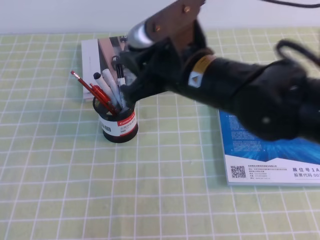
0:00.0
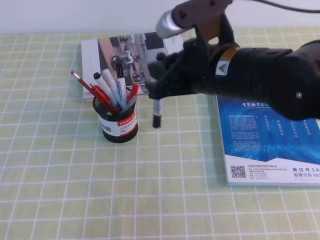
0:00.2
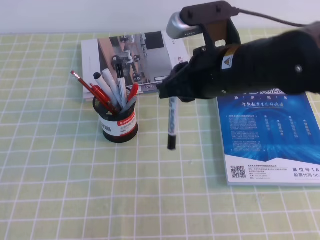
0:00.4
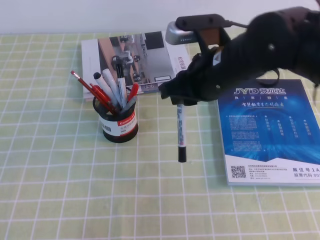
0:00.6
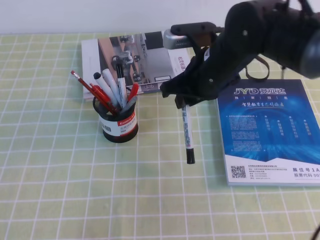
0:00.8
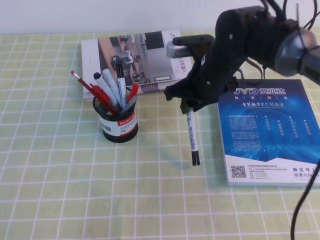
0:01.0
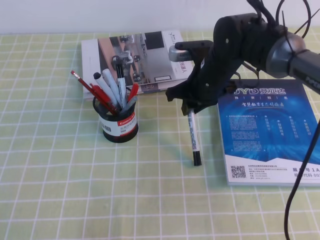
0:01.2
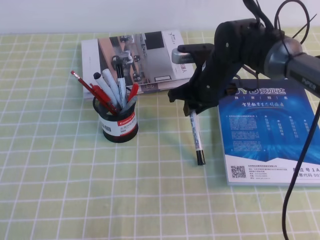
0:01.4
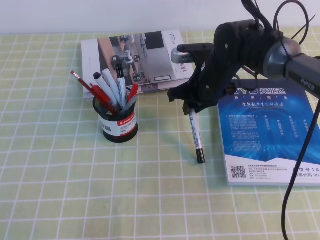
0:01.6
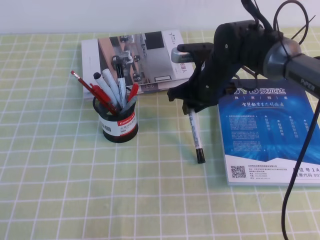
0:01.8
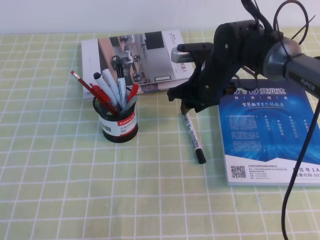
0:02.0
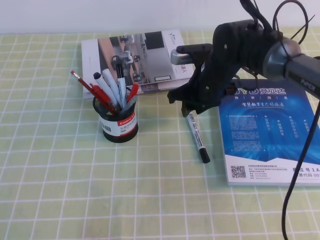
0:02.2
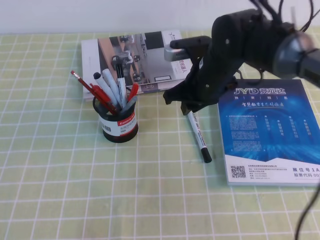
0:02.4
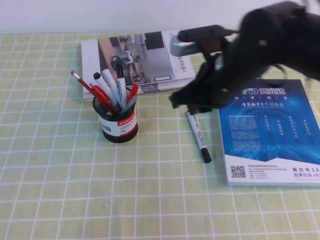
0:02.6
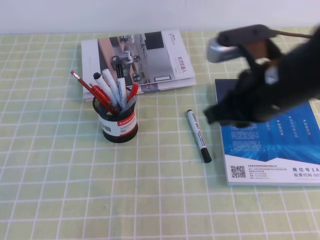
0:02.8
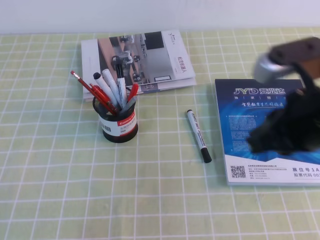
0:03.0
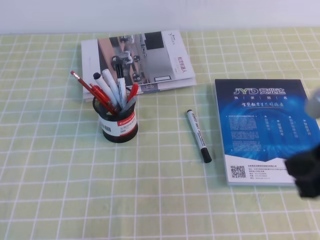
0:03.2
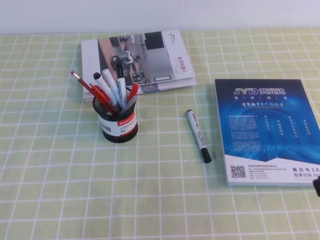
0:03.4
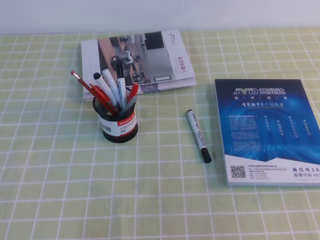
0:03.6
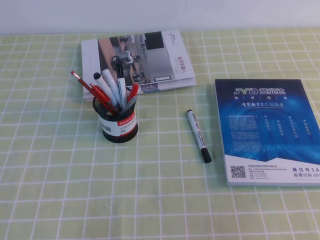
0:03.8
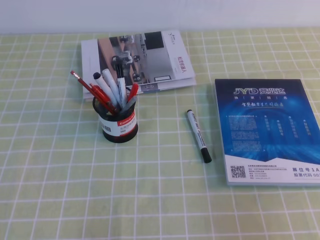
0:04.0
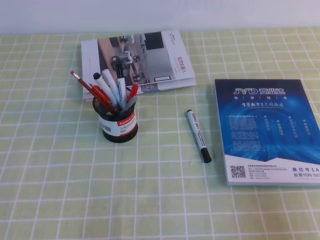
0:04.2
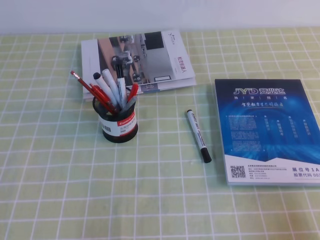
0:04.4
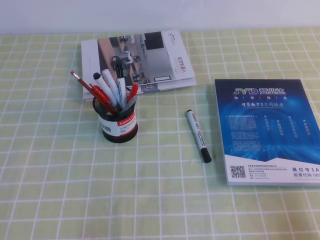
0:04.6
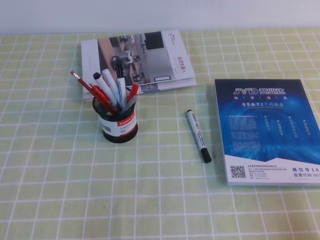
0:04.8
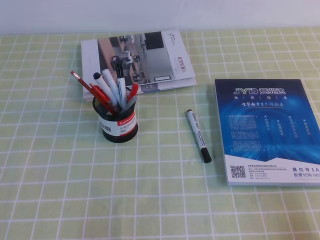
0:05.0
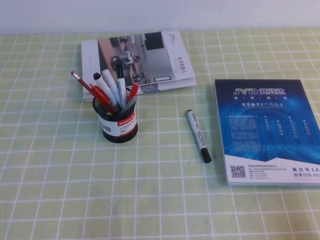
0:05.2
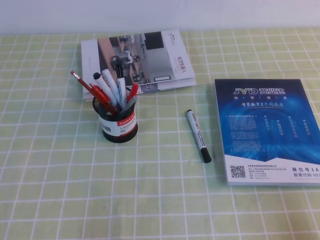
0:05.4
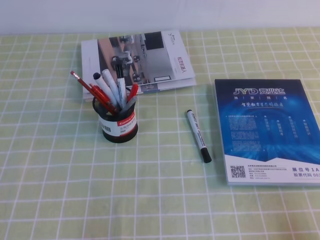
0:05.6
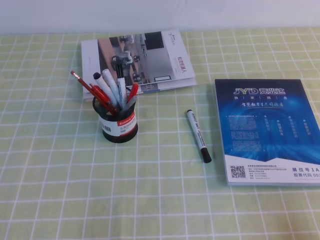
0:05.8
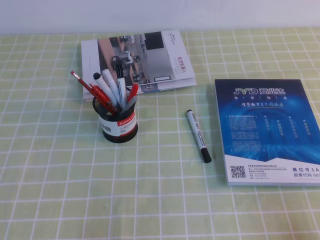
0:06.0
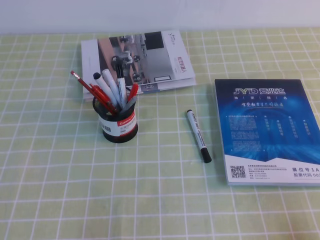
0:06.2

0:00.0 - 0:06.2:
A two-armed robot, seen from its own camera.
Step, 0:00.0 - 0:06.2: Pick up the pen from the pen holder.
0:00.0 - 0:01.6: The right gripper is displaced forward and downward by roughly 20 cm.
0:01.6 - 0:03.2: The right gripper shifts approximately 30 cm backward, to the right and upward.
0:03.2 - 0:04.6: The right gripper travels downward, to the right and backward by approximately 20 cm.

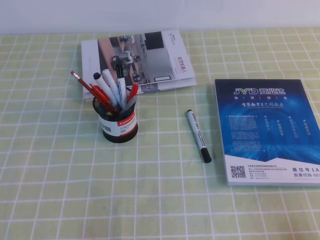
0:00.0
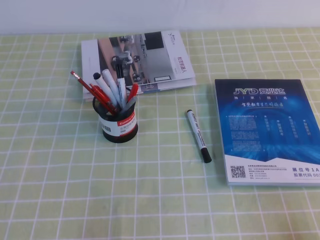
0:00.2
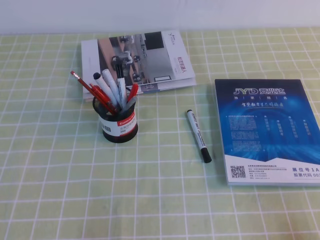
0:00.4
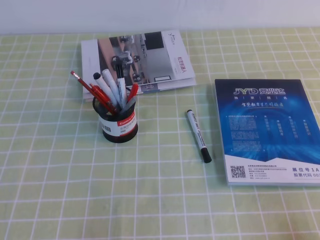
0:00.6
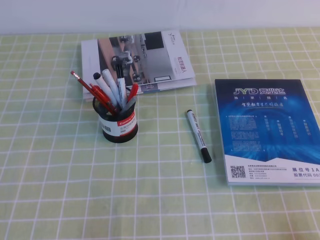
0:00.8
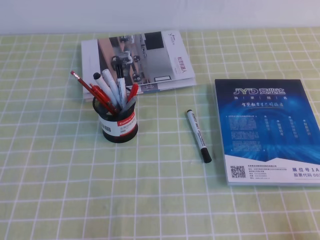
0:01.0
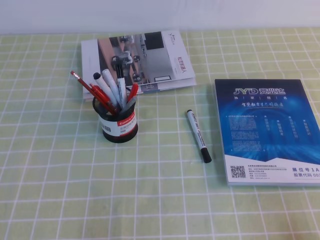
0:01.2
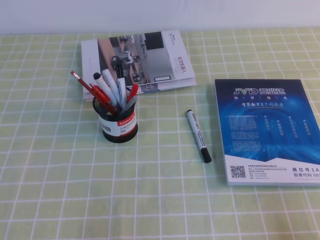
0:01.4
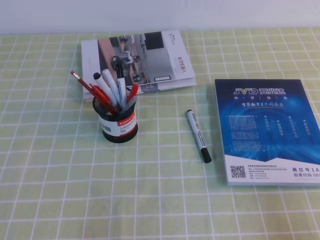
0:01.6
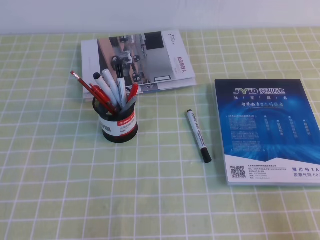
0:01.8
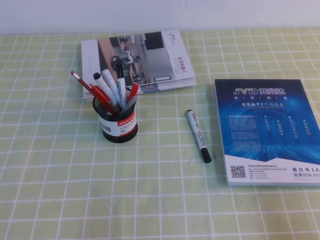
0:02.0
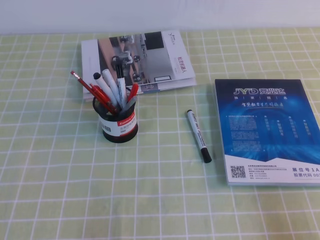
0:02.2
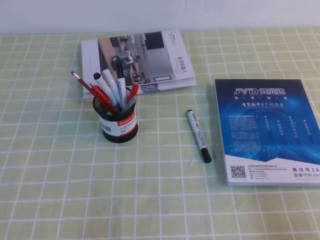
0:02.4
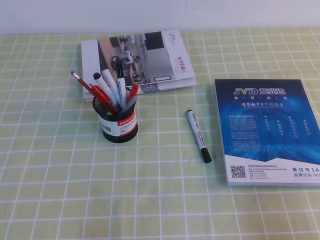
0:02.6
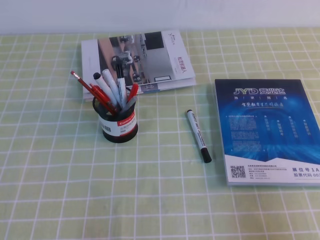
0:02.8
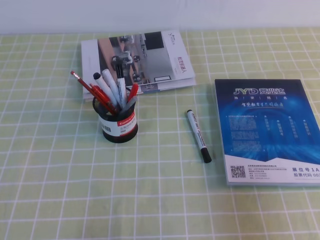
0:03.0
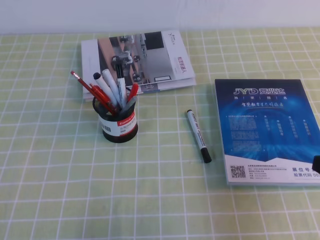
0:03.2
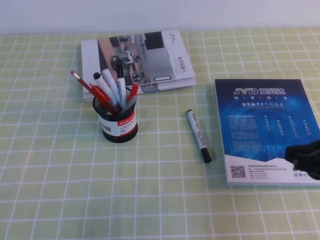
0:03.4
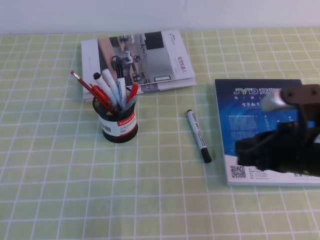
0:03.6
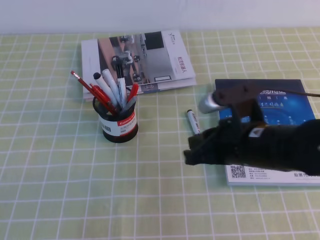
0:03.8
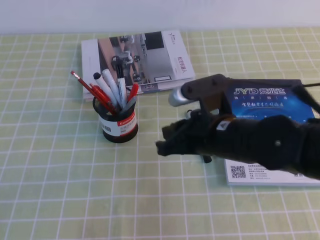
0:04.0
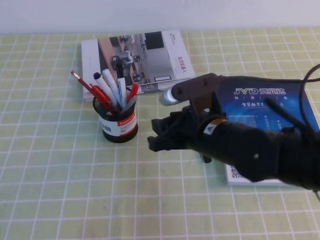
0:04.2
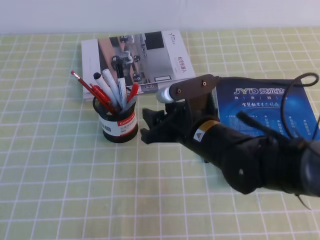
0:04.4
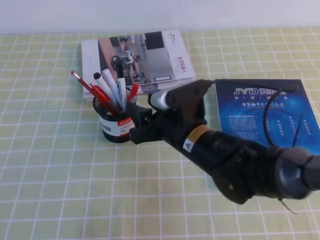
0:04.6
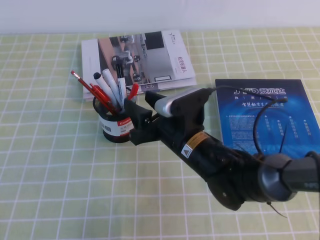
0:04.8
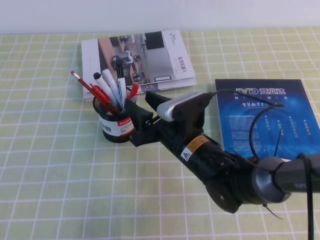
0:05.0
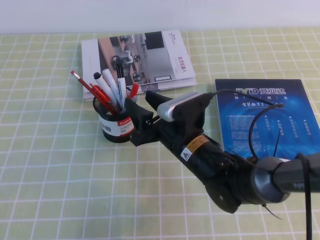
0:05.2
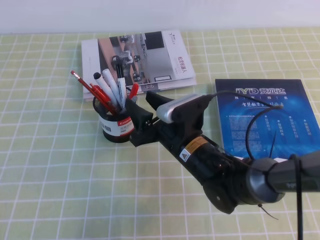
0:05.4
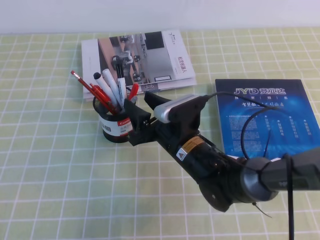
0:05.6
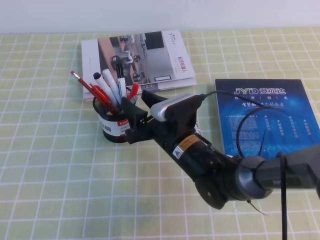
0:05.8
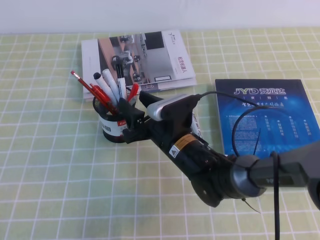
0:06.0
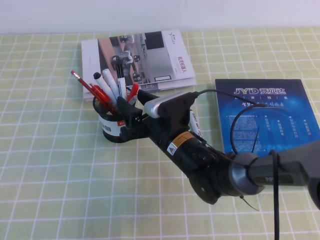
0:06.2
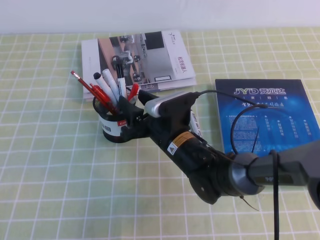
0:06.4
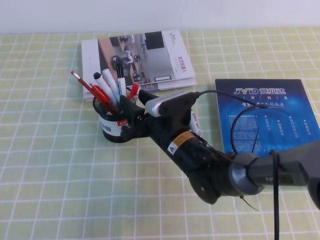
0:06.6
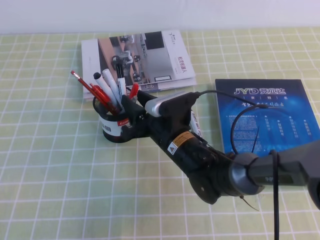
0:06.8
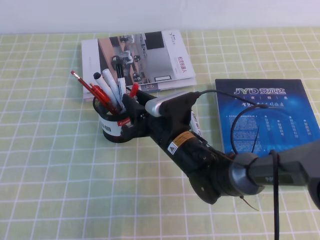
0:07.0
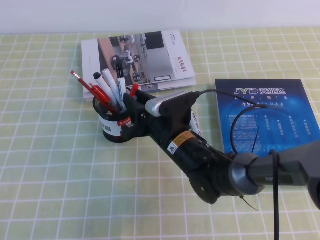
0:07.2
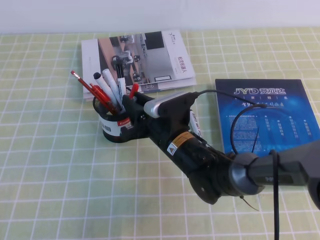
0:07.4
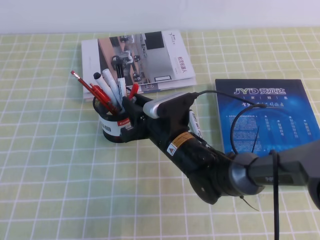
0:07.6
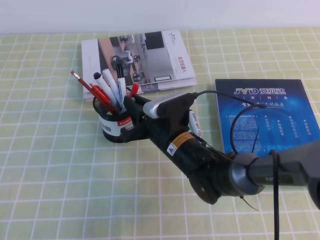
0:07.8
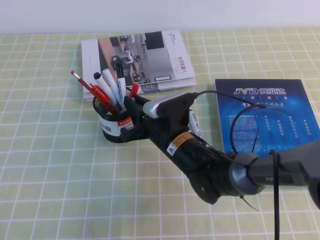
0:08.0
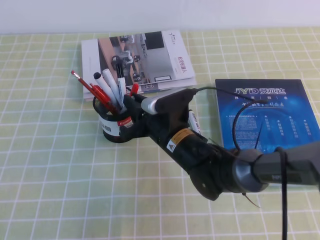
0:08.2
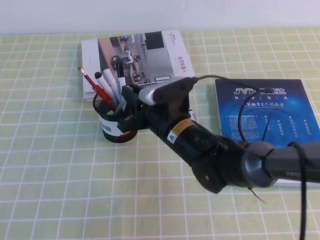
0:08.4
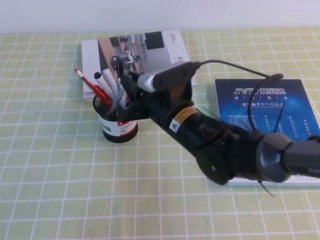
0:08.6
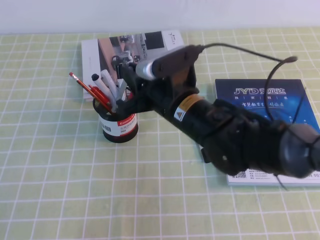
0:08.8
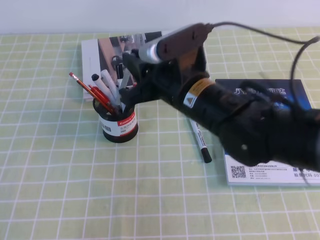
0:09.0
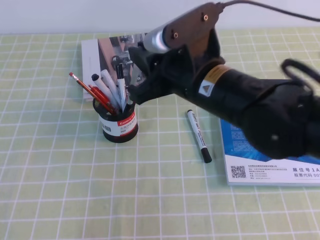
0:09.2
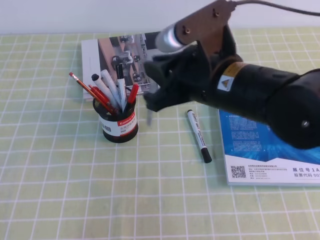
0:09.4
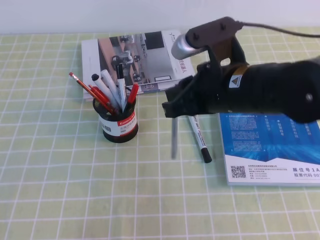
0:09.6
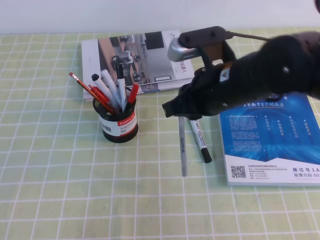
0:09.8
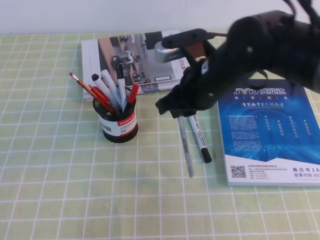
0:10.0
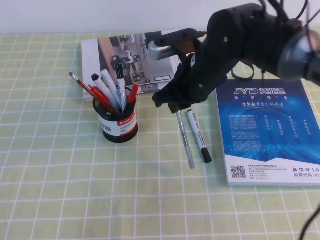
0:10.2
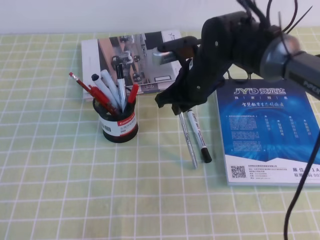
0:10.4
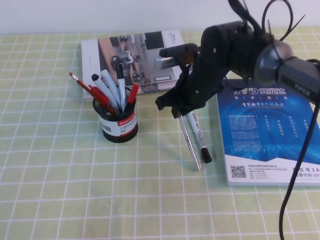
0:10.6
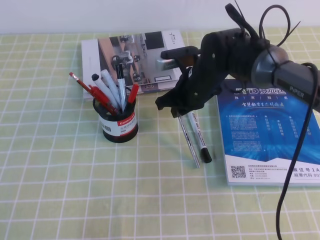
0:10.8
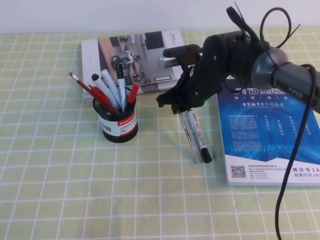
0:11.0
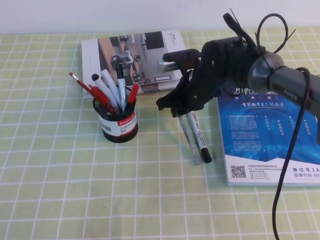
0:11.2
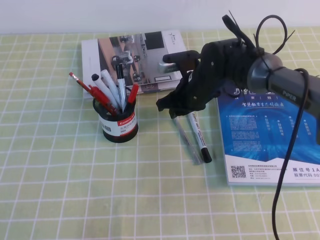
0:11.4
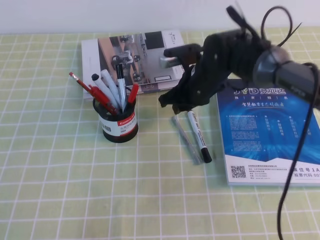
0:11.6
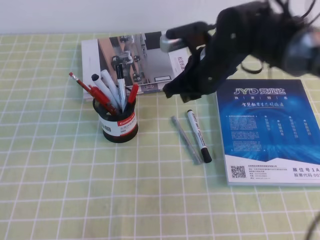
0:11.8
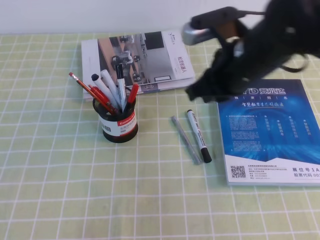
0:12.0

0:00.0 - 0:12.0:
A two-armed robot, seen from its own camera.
0:01.6 - 0:03.0: The right gripper goes roughly 5 cm upward.
0:03.0 - 0:04.4: The right gripper shifts some 30 cm to the left and forward, and opens its fingers.
0:04.4 - 0:06.0: The right gripper goes roughly 5 cm downward.
0:06.0 - 0:07.6: The right gripper closes up.
0:07.6 - 0:09.0: The right gripper is displaced upward by about 15 cm.
0:09.0 - 0:10.4: The right gripper travels forward by some 10 cm.
0:10.4 - 0:12.0: The right gripper is displaced upward, backward and to the right by about 10 cm.

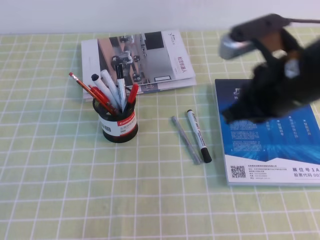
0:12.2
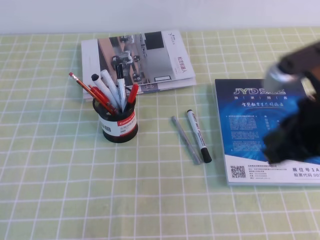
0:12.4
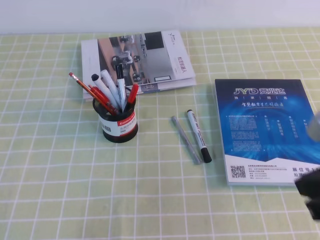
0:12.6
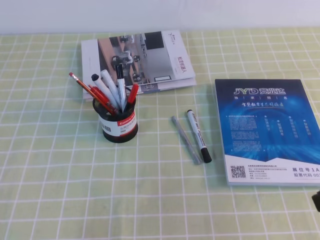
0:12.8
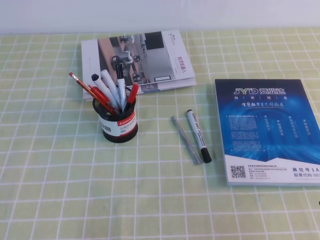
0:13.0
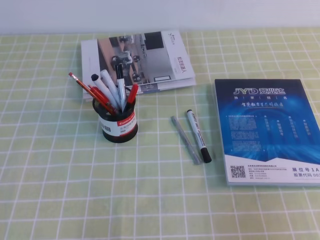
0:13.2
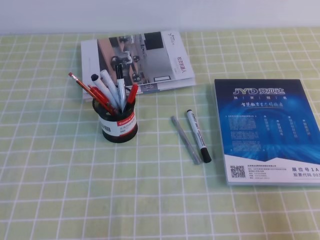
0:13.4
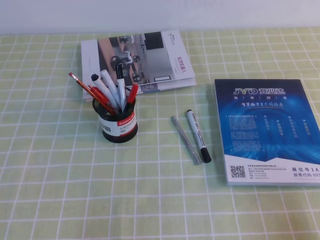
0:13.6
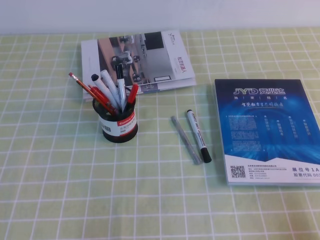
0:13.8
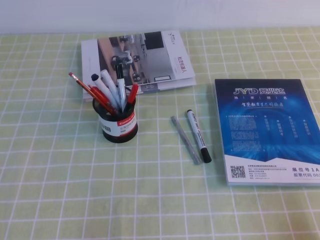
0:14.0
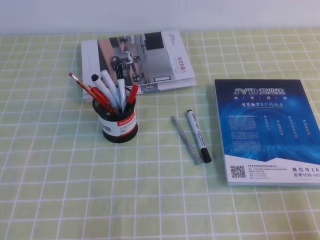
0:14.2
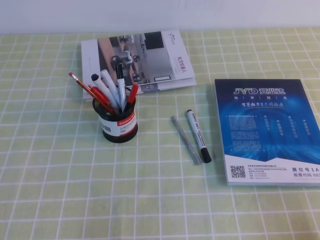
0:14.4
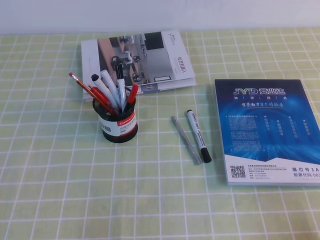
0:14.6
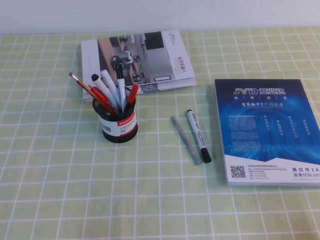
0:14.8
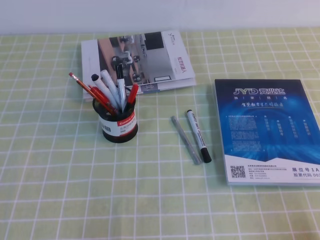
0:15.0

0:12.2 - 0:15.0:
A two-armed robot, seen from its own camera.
Step, 0:12.2 - 0:15.0: Pick up the pen from the pen holder.
0:12.2 - 0:13.6: The right gripper goes some 30 cm backward, to the right and downward.

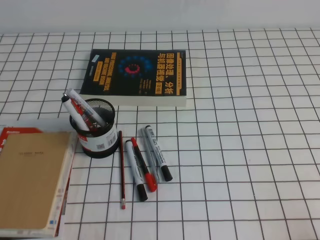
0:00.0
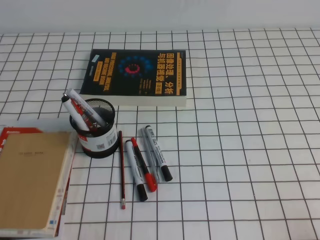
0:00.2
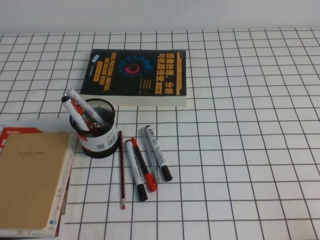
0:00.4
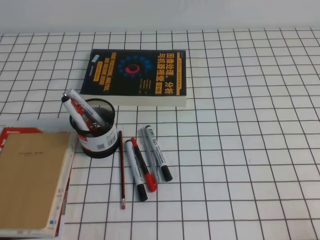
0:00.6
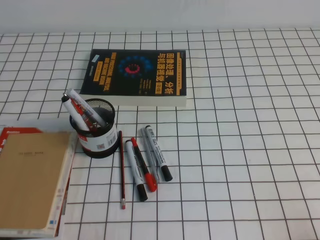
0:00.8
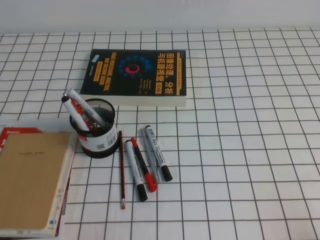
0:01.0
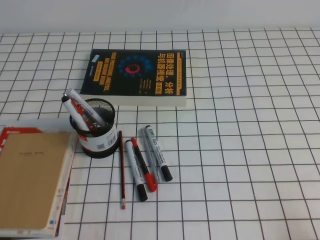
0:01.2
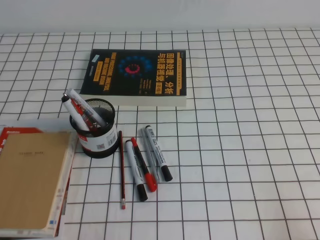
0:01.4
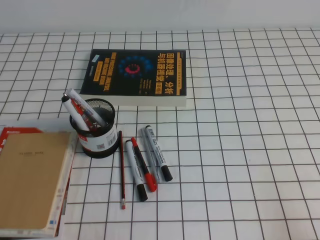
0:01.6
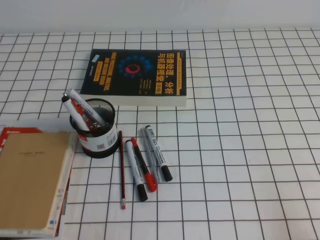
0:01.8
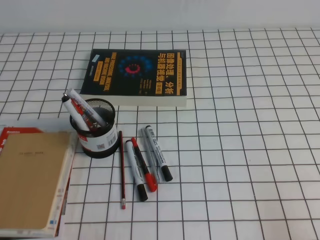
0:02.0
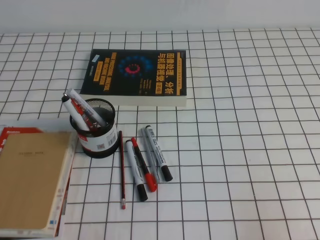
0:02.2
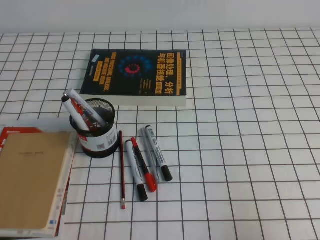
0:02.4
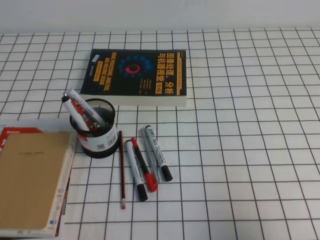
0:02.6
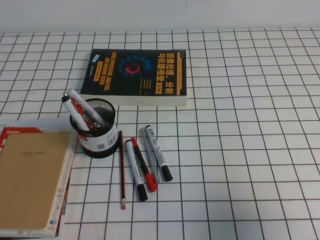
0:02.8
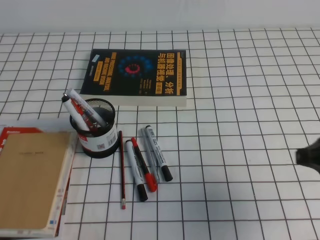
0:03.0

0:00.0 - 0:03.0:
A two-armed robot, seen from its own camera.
0:01.6 - 0:03.0: The right gripper heads forward and upward, covering some 15 cm.
